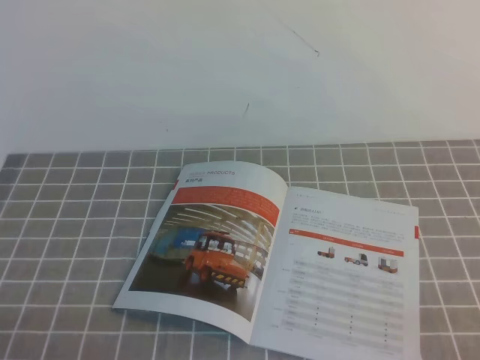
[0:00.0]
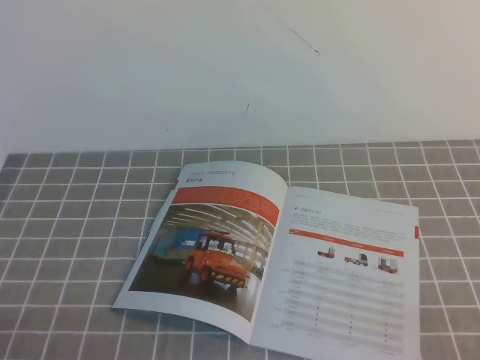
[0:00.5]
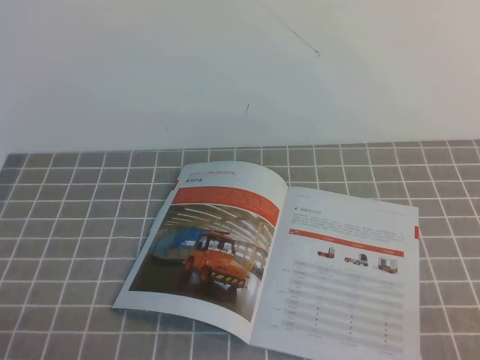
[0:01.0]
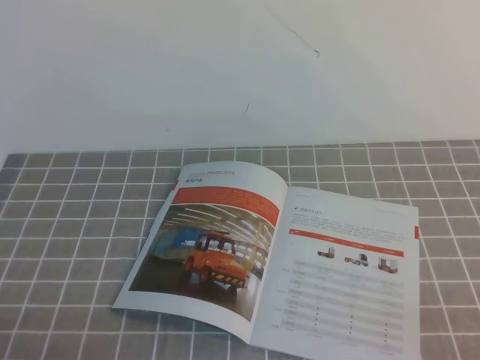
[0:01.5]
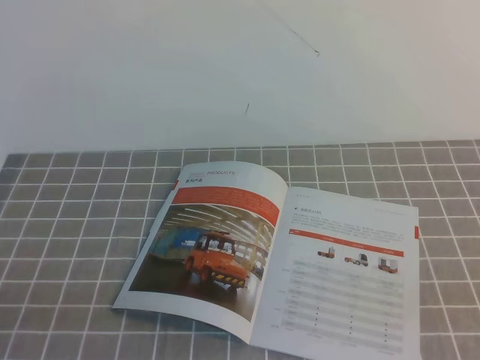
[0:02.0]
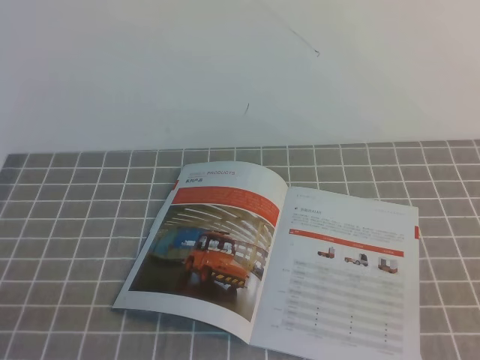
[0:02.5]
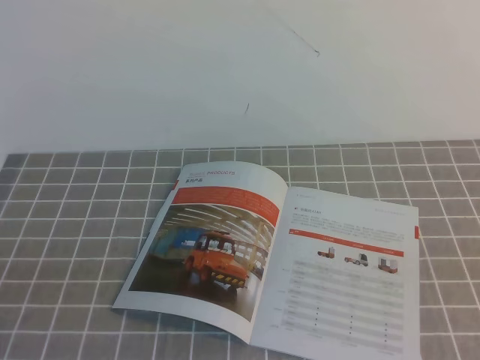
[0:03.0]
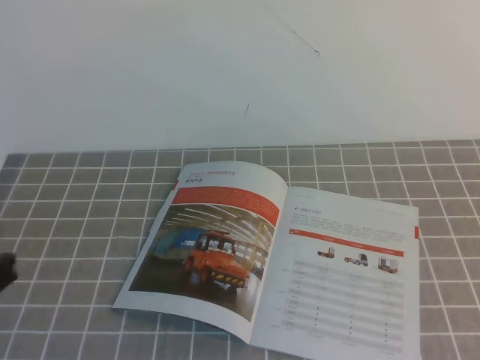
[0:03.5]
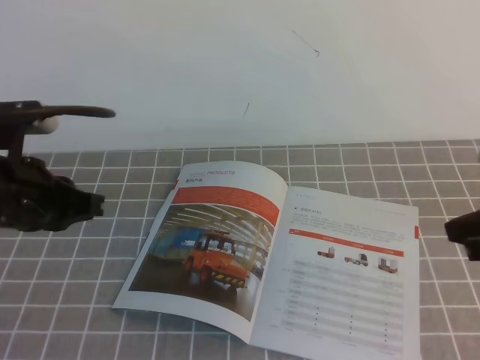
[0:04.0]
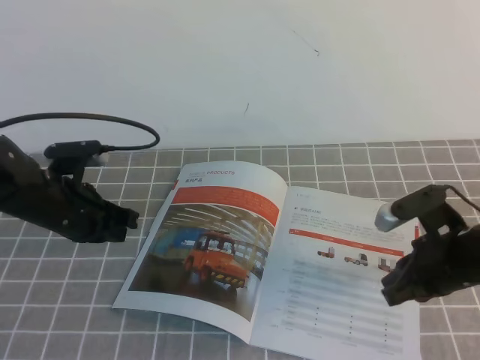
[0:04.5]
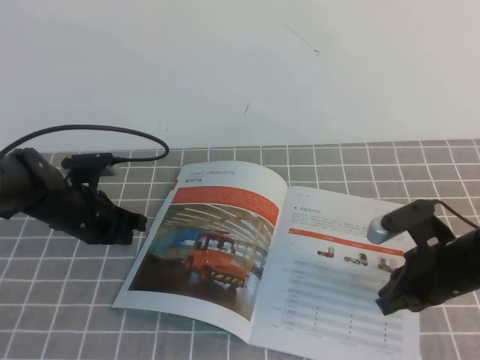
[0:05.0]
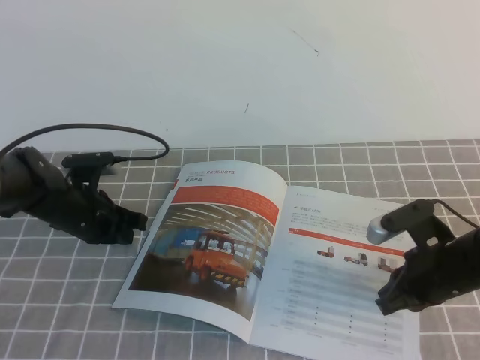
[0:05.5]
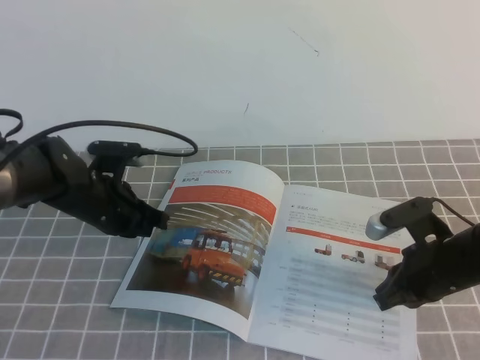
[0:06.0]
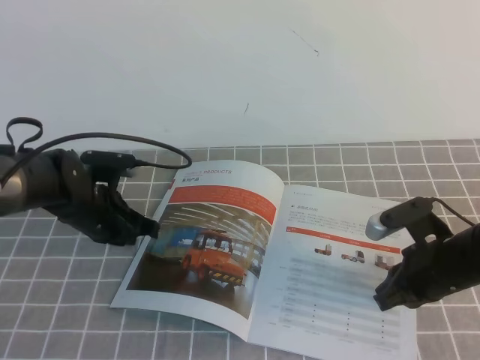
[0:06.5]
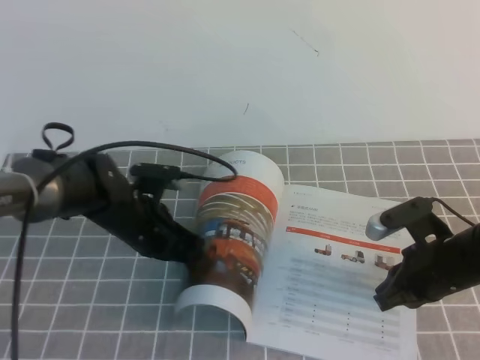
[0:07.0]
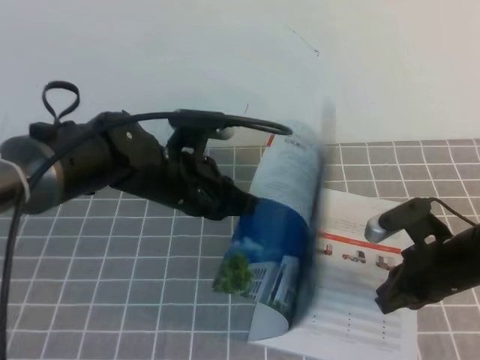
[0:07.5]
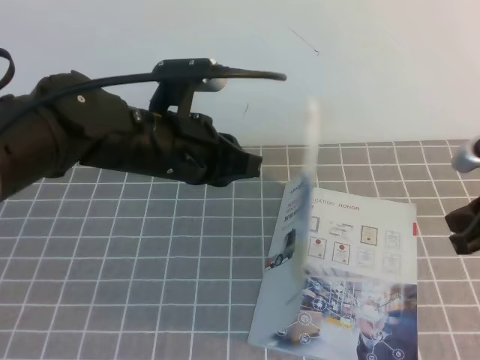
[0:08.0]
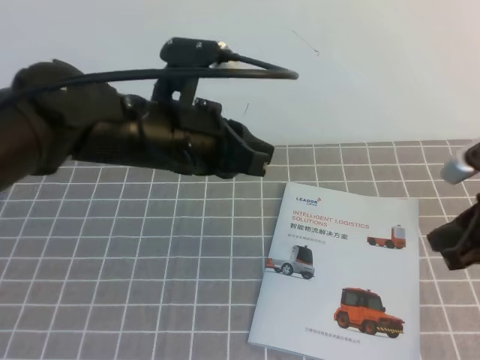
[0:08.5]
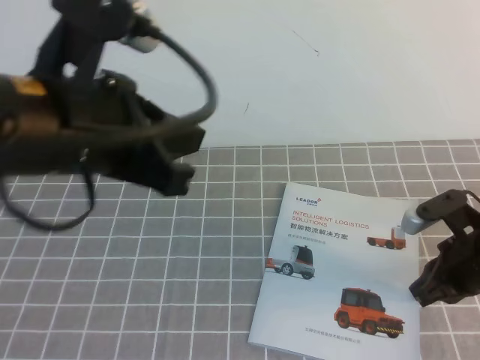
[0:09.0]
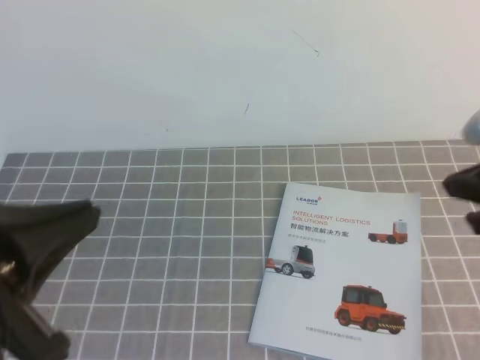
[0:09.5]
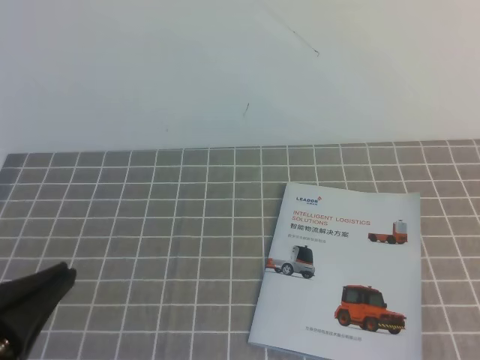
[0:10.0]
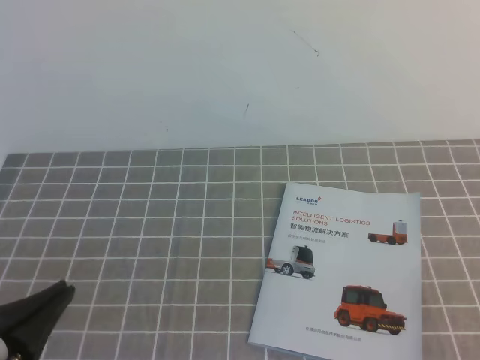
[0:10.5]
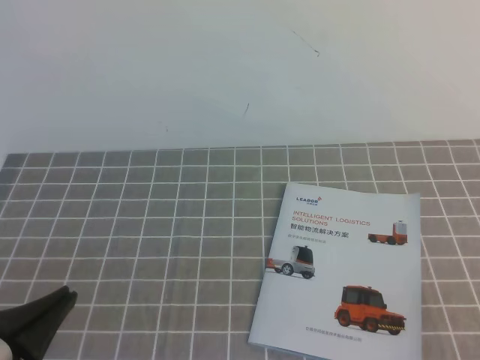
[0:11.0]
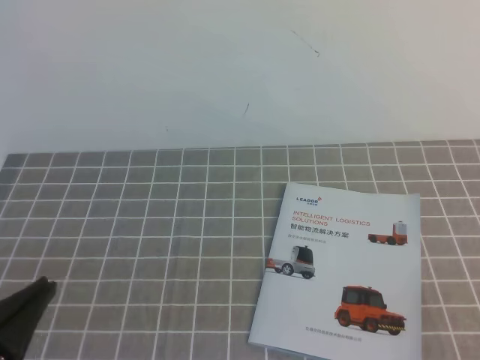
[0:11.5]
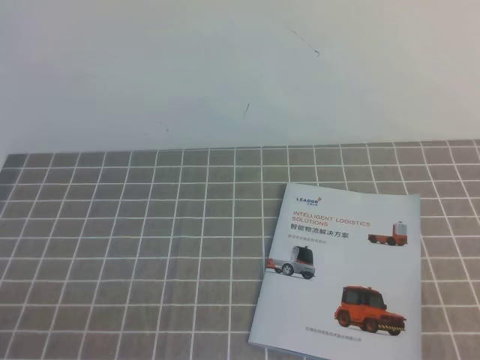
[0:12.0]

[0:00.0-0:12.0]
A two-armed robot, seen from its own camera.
Task of the whole recording: on the grey tablecloth, hold the book with one hand and close it with the other.
0:02.0 to 0:04.0: Both grippers move forward, about 20 cm.
0:04.0 to 0:06.0: The right gripper travels downward by approximately 15 cm. The left gripper is displaced downward and forward by about 20 cm.
0:06.0 to 0:08.0: The left gripper travels upward, to the right and backward by about 20 cm, while the right gripper travels upward by some 10 cm.
0:08.0 to 0:10.0: The right gripper goes some 20 cm backward and upward. Meanwhile the left gripper is displaced backward and to the left by some 25 cm.
0:10.0 to 0:12.0: The left gripper is displaced downward by about 10 cm.

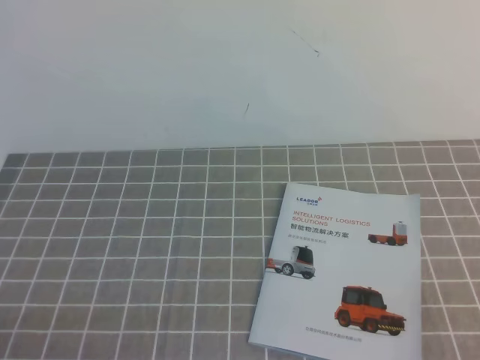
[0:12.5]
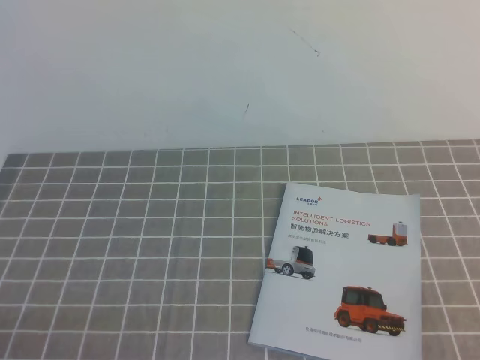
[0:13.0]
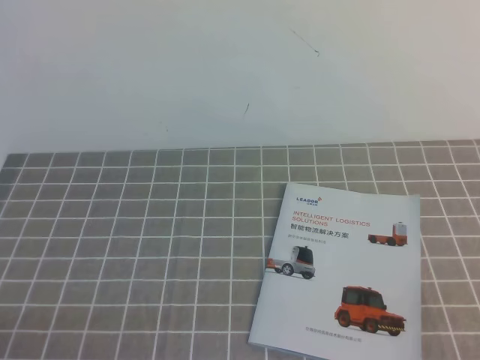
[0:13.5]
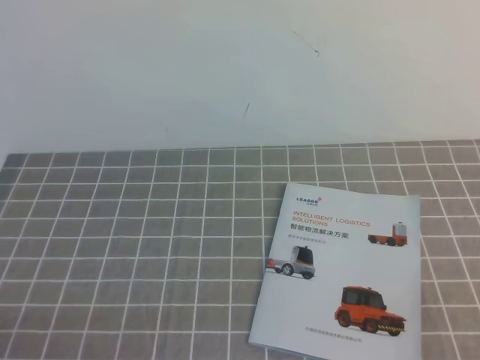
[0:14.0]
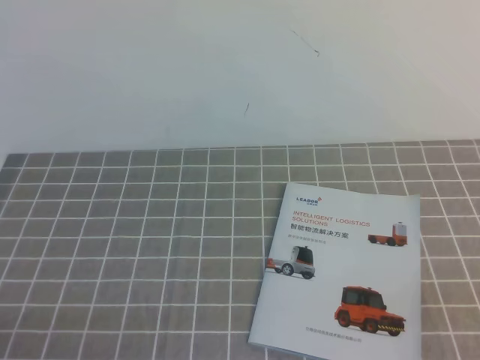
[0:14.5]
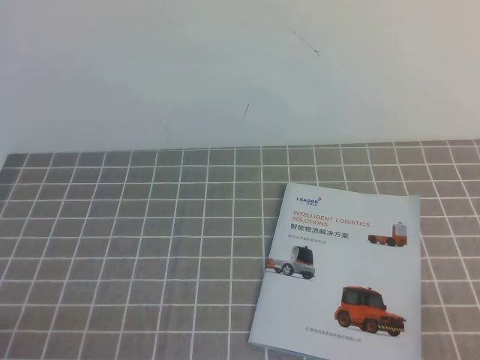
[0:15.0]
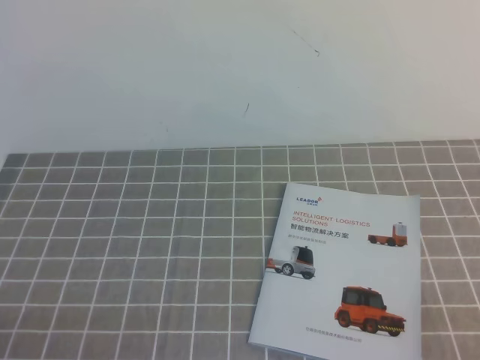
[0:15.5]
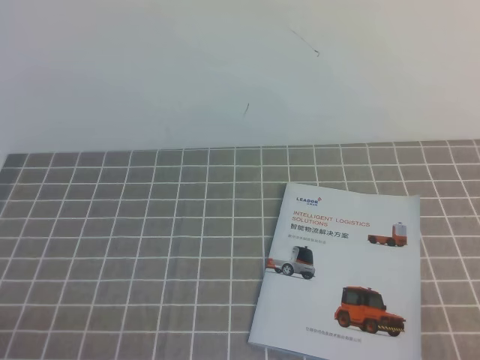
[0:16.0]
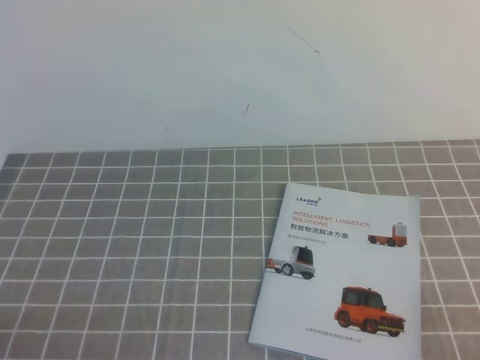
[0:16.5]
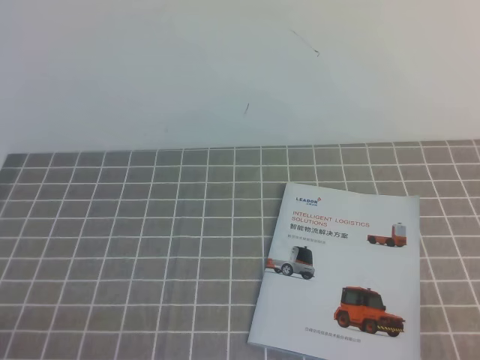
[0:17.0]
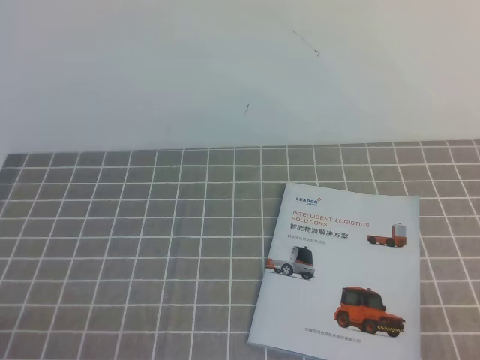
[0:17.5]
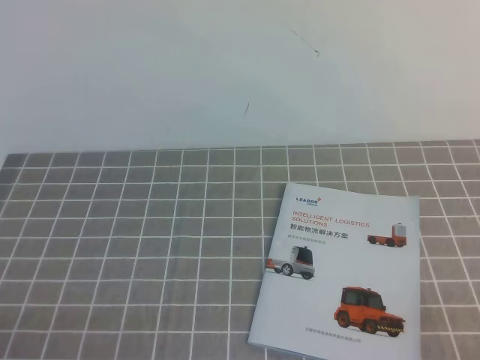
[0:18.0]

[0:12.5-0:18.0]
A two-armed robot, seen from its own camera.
Task of the whole recording: on the grey tablecloth, hold the book with one hand and close it with the other.
0:16.0 to 0:18.0: Neither gripper changes place.
